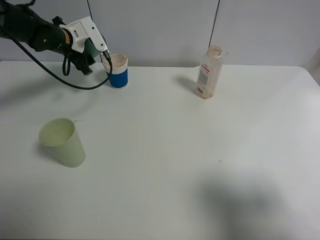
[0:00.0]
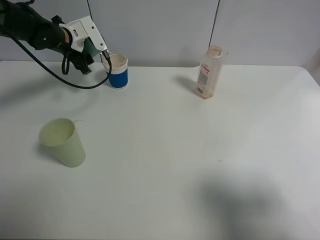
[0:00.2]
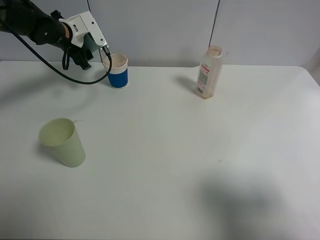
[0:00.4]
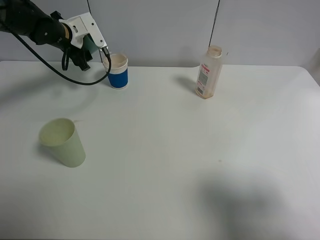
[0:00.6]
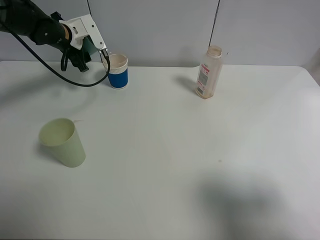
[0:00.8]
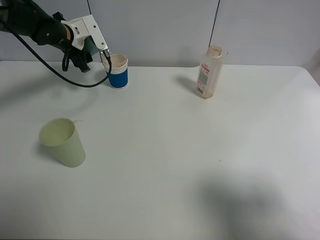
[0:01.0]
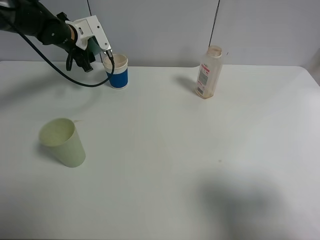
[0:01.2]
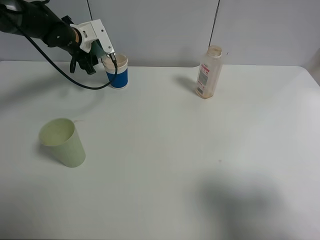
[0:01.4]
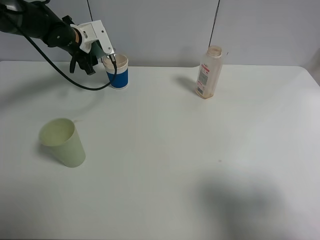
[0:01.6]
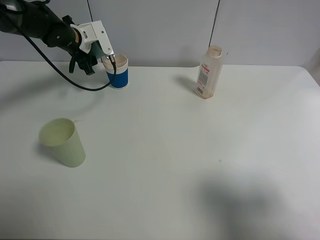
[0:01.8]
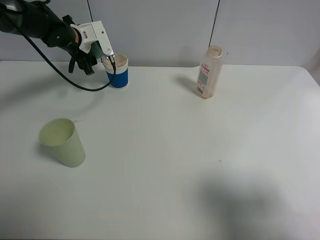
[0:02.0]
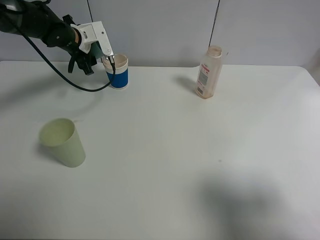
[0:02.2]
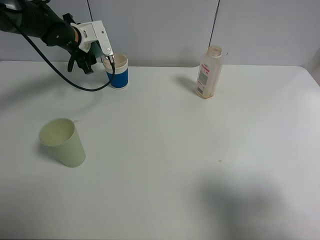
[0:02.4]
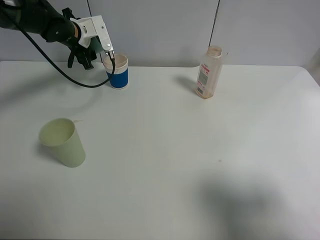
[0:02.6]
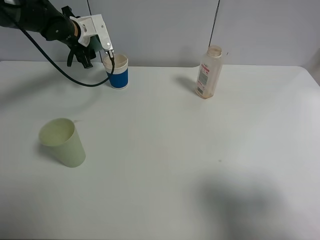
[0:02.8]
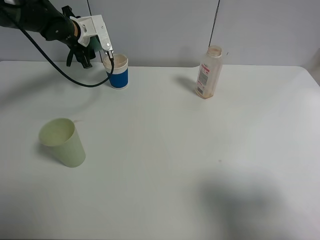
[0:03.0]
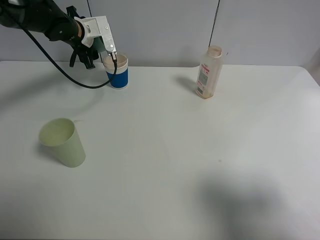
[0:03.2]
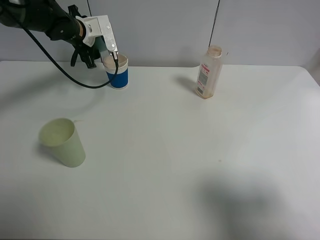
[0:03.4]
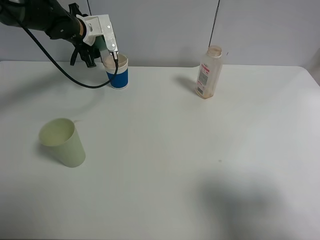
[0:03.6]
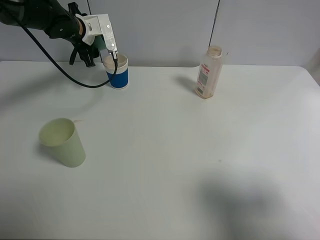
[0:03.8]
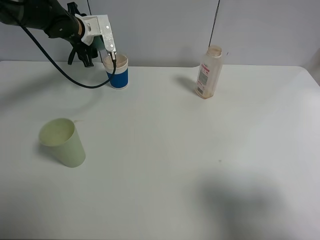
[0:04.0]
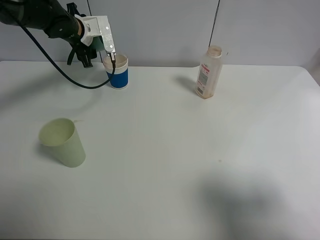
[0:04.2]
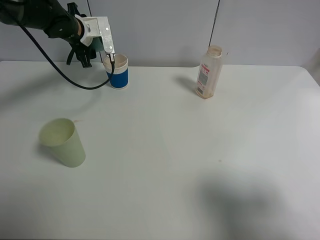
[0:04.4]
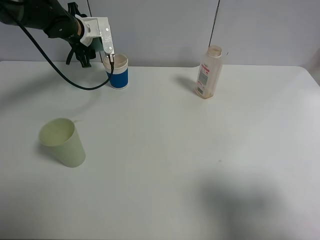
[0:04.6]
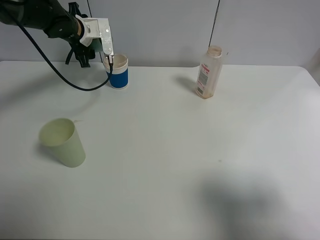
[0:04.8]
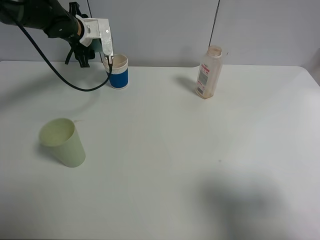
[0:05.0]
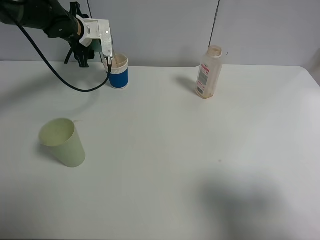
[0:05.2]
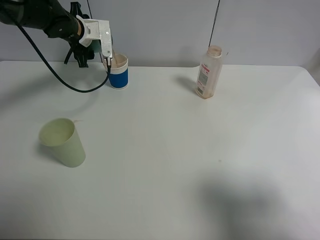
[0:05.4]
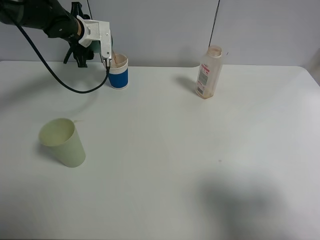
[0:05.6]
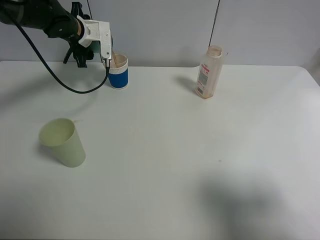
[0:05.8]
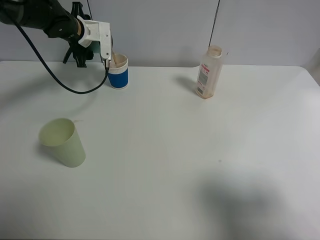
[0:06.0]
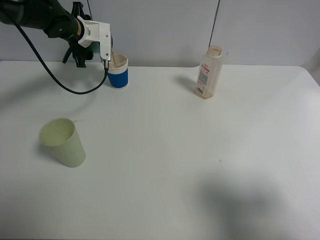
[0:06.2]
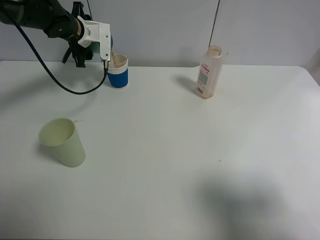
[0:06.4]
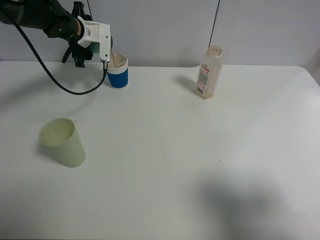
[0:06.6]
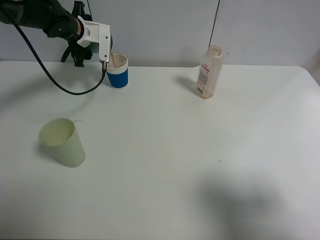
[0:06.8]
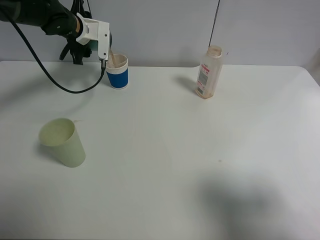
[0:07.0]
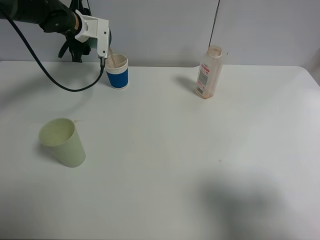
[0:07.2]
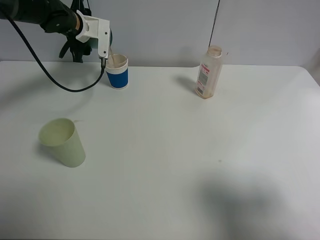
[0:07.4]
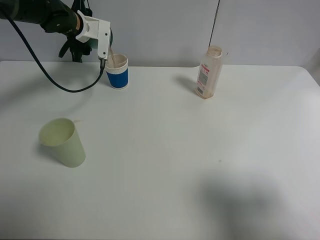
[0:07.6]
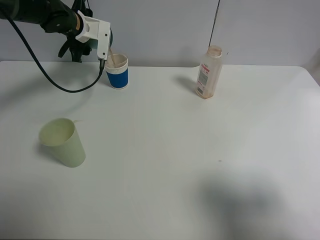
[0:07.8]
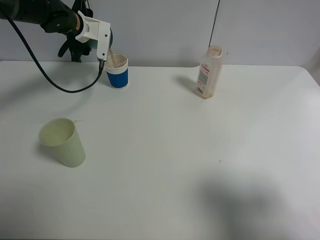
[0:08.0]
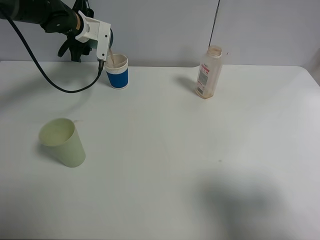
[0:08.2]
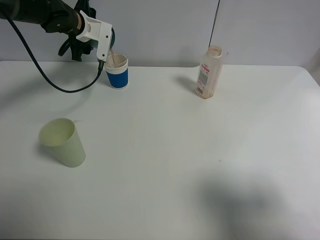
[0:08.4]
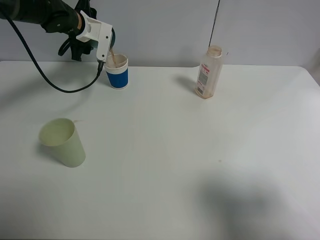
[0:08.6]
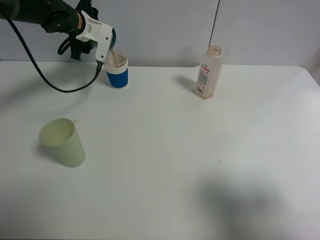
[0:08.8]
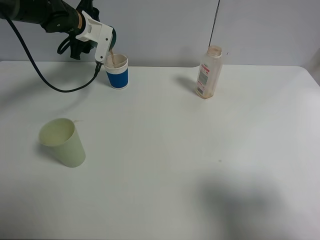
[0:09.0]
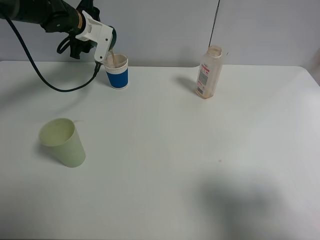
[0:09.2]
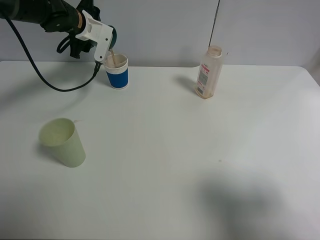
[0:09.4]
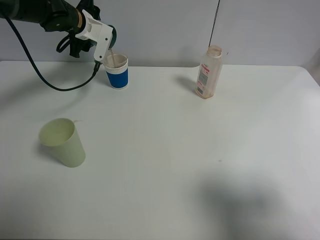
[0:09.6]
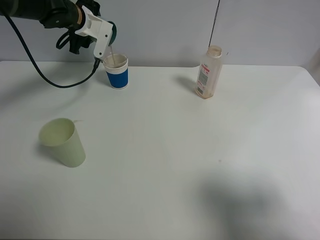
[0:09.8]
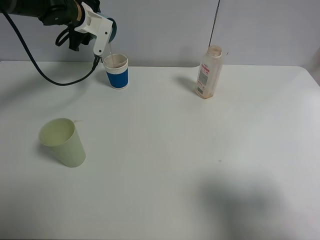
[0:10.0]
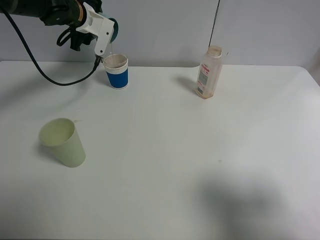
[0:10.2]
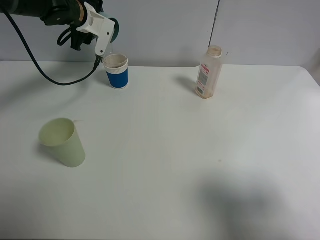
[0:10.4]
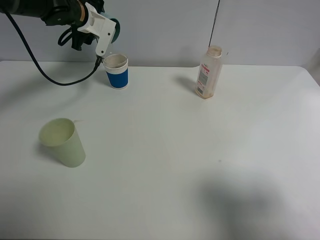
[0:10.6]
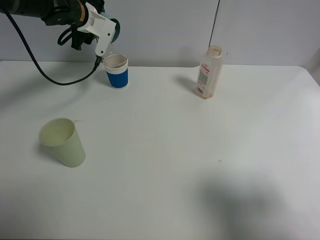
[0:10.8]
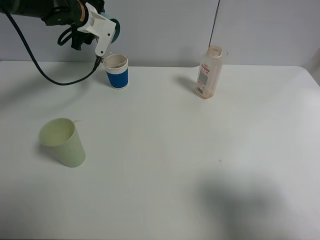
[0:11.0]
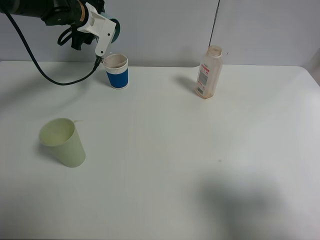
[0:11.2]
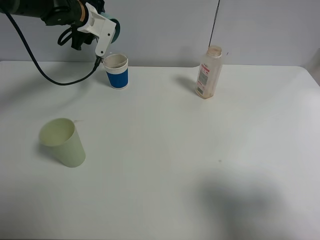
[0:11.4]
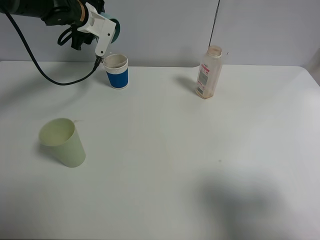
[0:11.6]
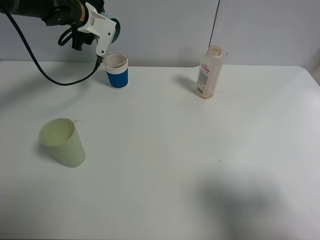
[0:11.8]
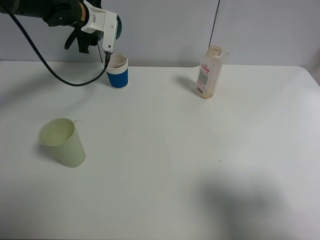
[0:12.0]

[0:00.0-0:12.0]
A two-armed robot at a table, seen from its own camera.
Task of the whole recording: use a clamp to hold the bottle of the drink, pour the beverage into a random cup, then clamp the cup containing the drink and pour the drink into another random cup.
Step, 0:00.0 to 0:11.6: Pour the drink into the paper cup with left gripper.
0:00.0 to 0:04.4: The grippers move only a little.
0:04.4 to 0:07.6: There are only small adjustments of the grippers.
0:07.6 to 0:10.4: The grippers make only small movements.
0:10.4 to 0:12.0: The grippers make only small movements.

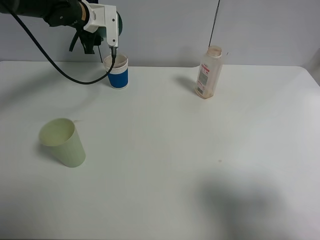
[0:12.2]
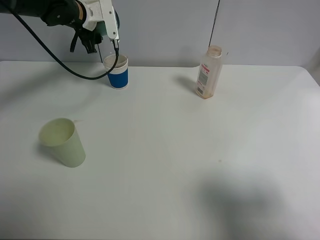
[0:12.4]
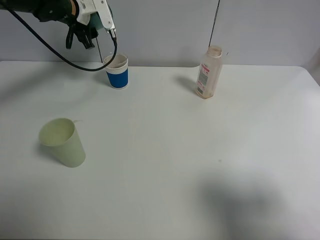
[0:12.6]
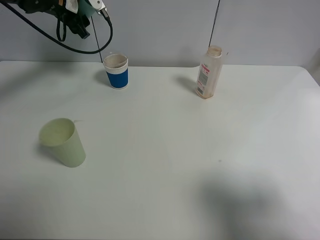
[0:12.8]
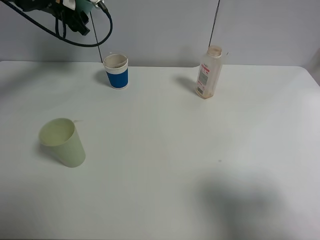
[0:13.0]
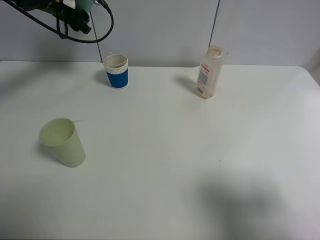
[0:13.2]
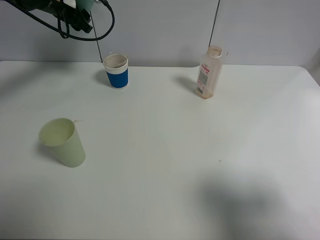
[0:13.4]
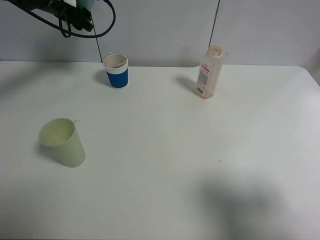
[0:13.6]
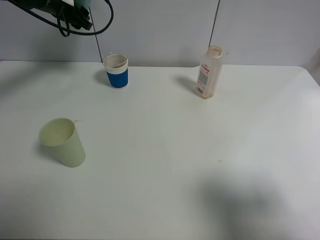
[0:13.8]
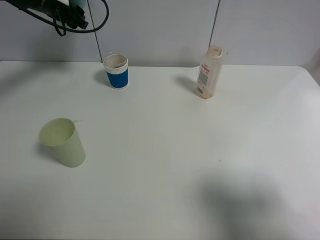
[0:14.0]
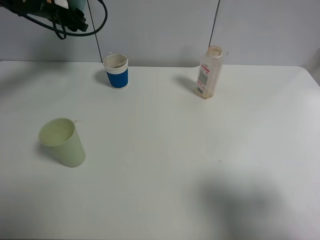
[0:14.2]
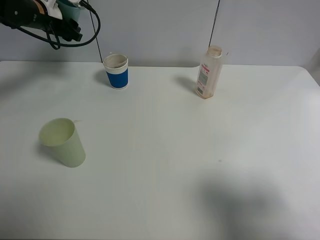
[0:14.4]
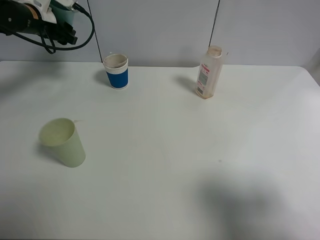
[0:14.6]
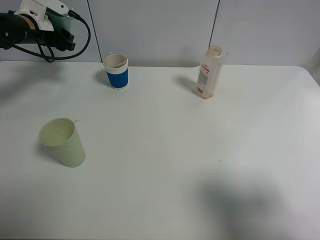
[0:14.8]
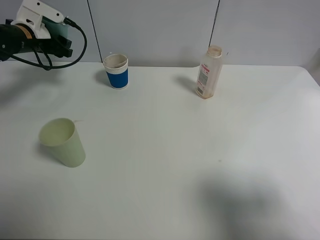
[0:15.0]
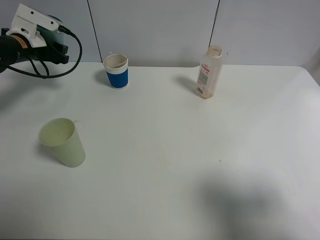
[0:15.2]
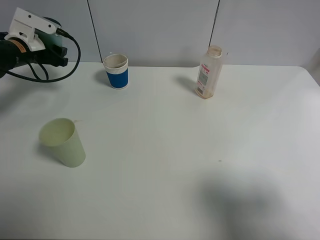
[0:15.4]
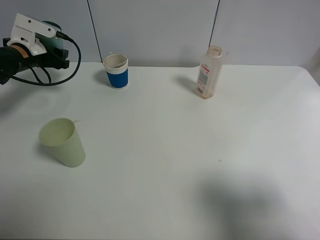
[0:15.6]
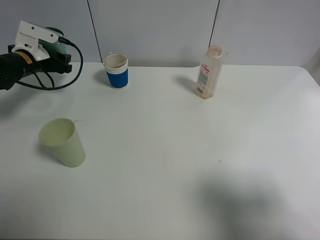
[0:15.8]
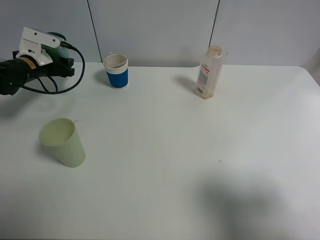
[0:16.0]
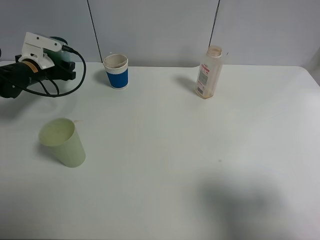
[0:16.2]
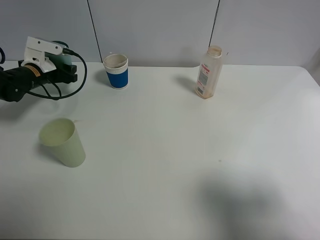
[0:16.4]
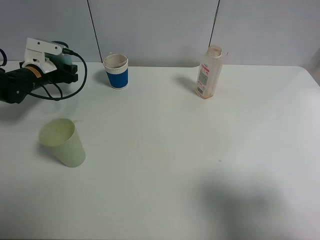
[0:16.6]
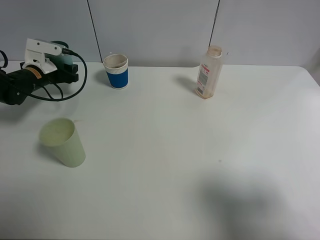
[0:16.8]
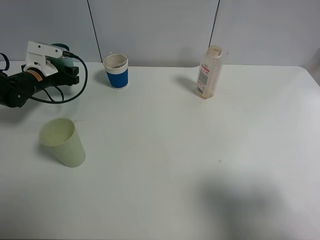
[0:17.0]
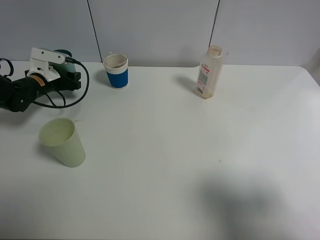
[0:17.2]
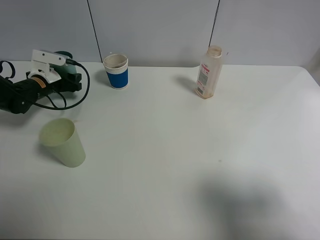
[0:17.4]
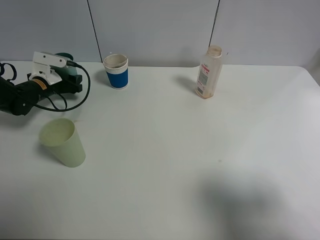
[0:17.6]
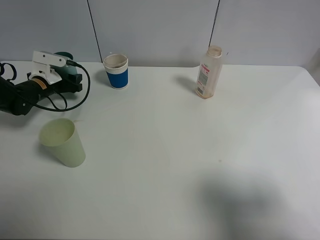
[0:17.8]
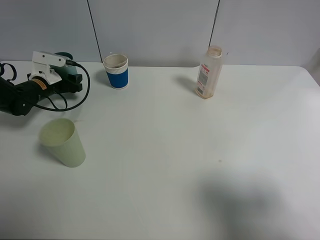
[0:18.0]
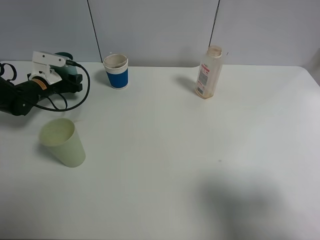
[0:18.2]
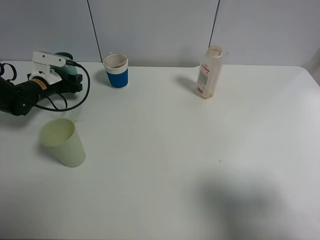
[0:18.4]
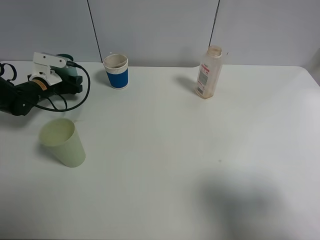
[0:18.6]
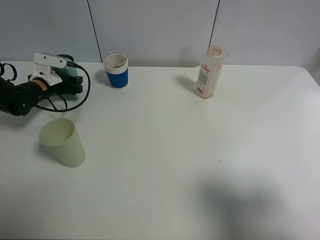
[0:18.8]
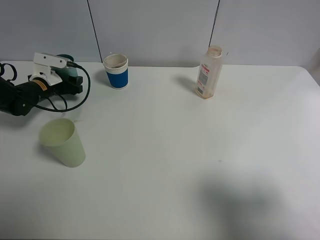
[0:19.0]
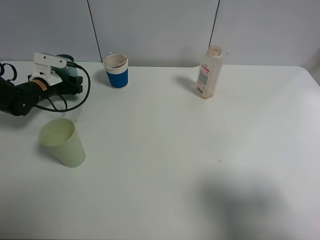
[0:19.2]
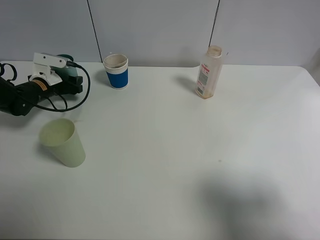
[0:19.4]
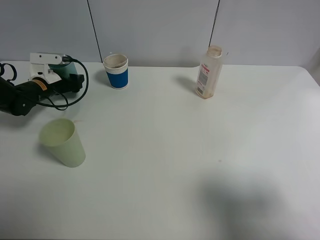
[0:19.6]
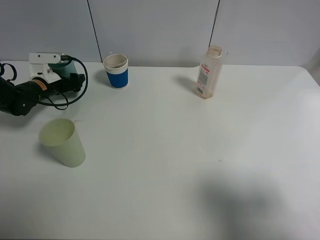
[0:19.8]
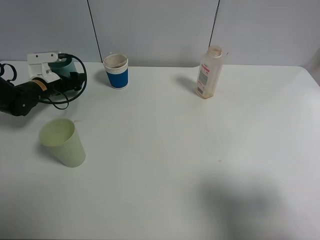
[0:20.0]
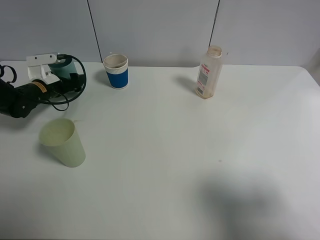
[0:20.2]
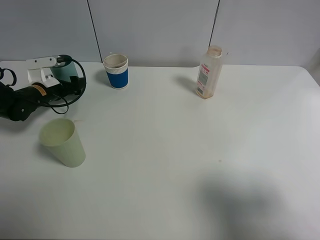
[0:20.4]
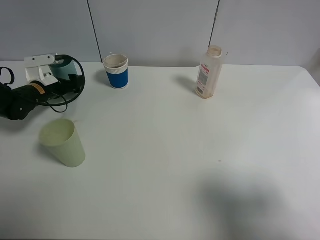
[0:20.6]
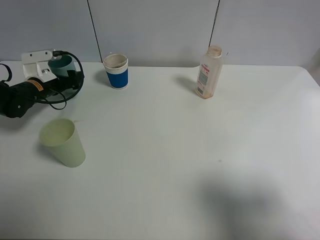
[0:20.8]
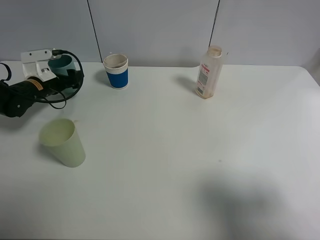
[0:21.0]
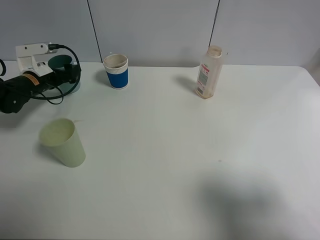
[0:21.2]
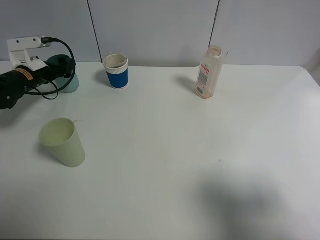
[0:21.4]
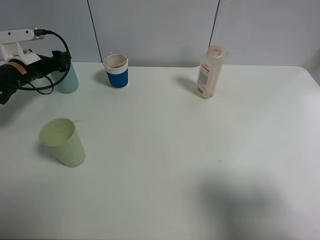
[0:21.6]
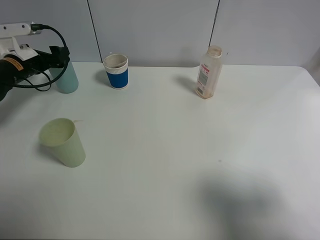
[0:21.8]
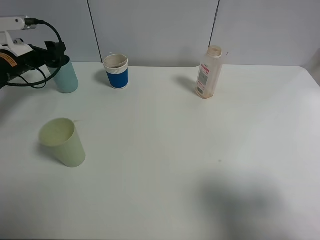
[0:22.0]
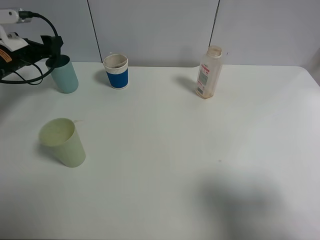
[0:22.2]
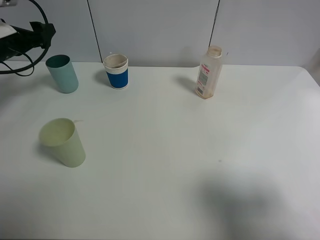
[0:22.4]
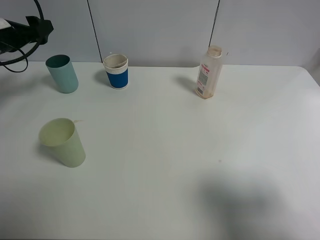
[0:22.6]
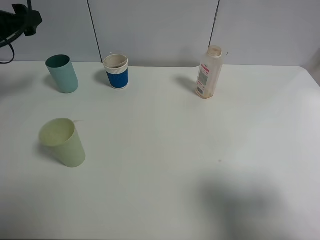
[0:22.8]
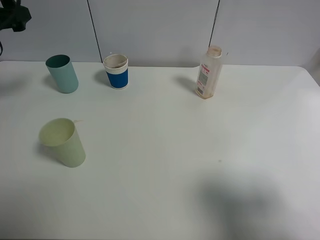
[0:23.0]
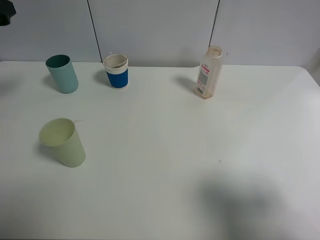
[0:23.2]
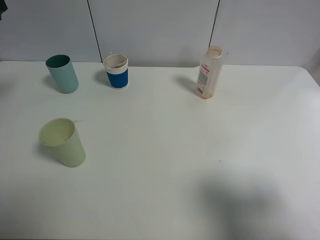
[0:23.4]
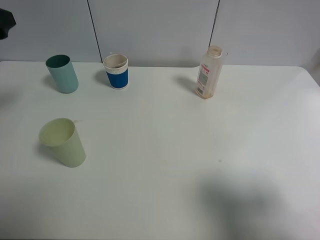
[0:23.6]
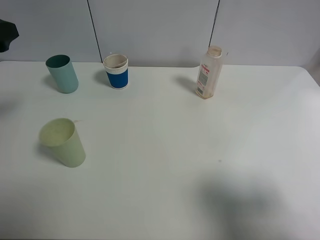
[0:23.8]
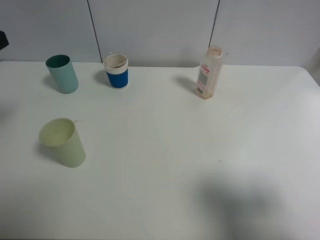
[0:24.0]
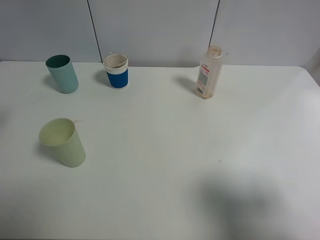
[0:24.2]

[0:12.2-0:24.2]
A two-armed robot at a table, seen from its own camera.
Task of the whole recording: use a clamp to hold the bottle of the drink, pour the beverage into a random cup, then clamp the cup containing the drink and pour the drink into another random cup.
Step, 0:12.2 to 0:19.6: Place the blue plastic cup on the table with left gripper.
0:12.2 to 0:13.8: The left gripper shifts about 5 cm to the left.
0:13.8 to 0:15.2: The left gripper heads downward, to the left and backward, covering approximately 15 cm.
0:15.2 to 0:16.6: The left gripper moves downward, approximately 10 cm.
0:16.6 to 0:18.2: The grippers make only small movements.
0:18.2 to 0:19.8: The left gripper opens up.
0:19.8 to 0:21.2: The left gripper opens.
0:21.2 to 0:22.6: The left gripper heads upward, covering about 10 cm.
0:22.6 to 0:24.2: The left gripper travels backward and upward by roughly 20 cm.
